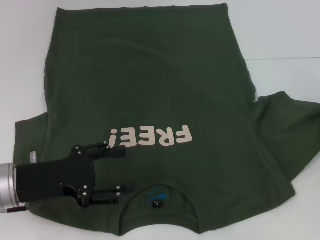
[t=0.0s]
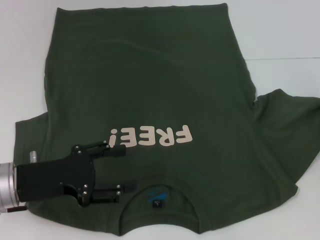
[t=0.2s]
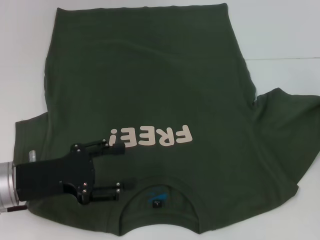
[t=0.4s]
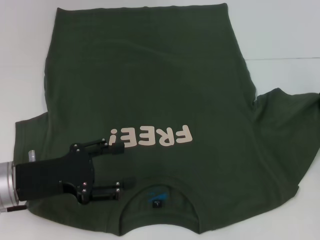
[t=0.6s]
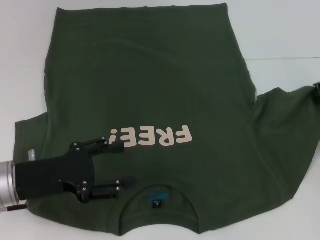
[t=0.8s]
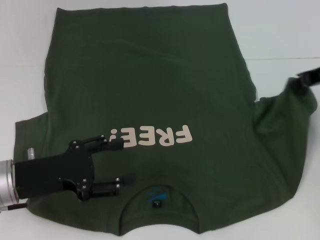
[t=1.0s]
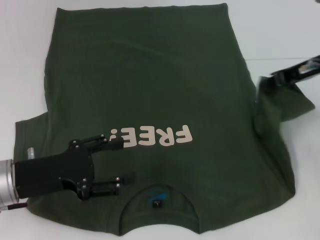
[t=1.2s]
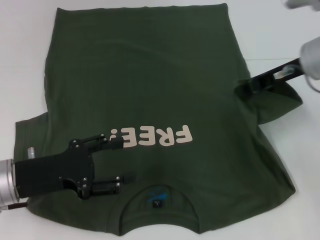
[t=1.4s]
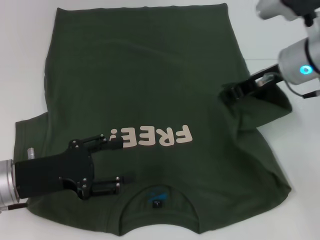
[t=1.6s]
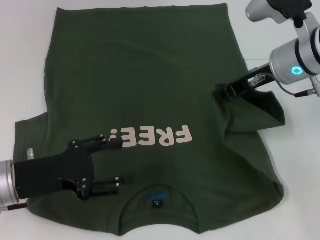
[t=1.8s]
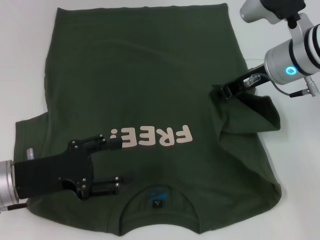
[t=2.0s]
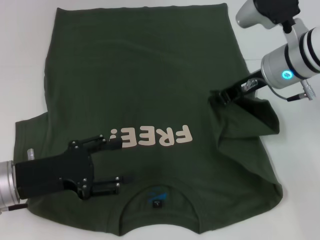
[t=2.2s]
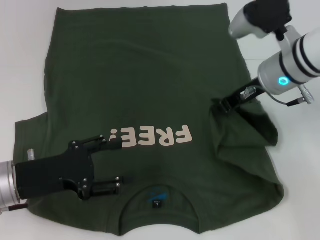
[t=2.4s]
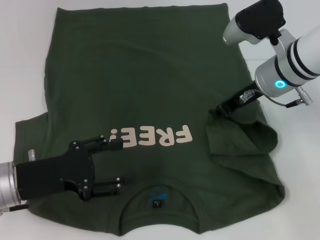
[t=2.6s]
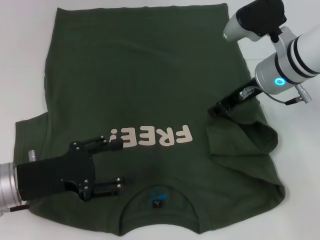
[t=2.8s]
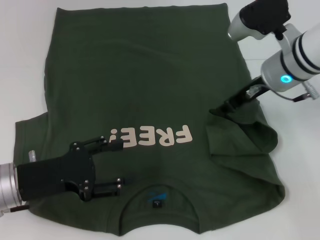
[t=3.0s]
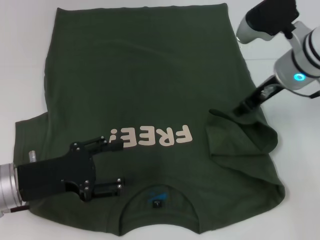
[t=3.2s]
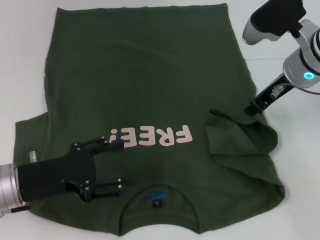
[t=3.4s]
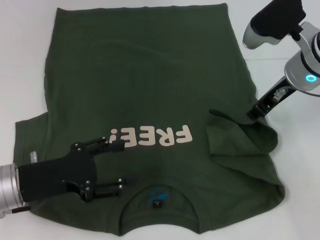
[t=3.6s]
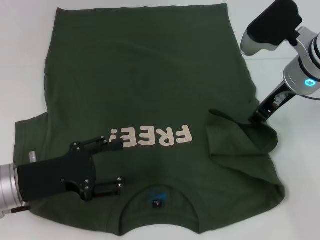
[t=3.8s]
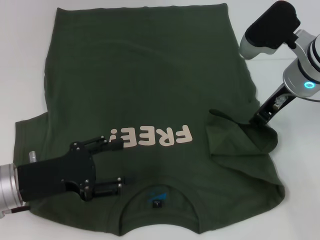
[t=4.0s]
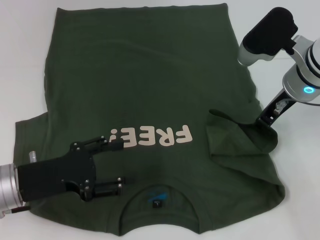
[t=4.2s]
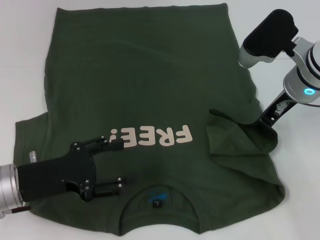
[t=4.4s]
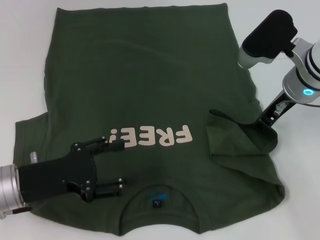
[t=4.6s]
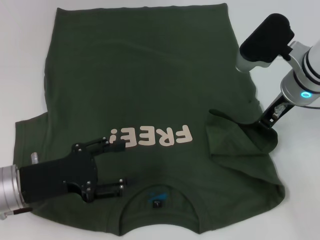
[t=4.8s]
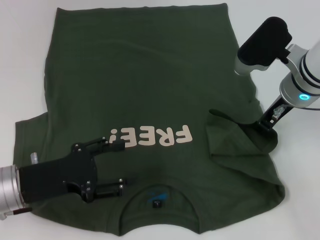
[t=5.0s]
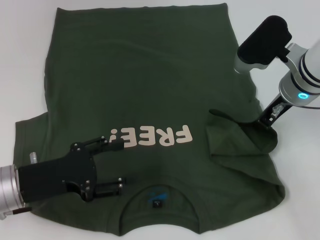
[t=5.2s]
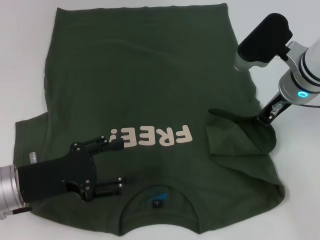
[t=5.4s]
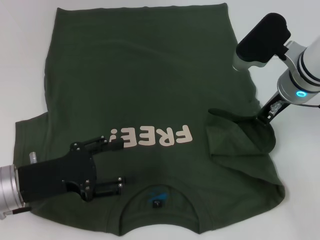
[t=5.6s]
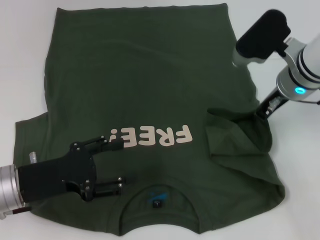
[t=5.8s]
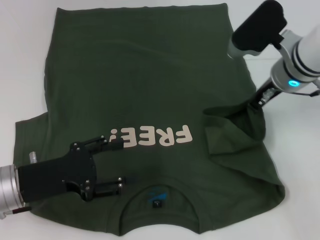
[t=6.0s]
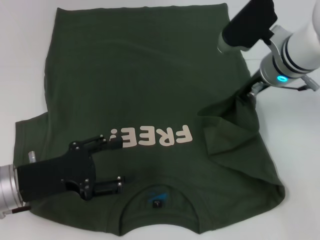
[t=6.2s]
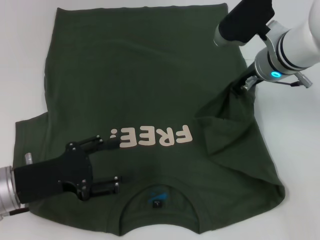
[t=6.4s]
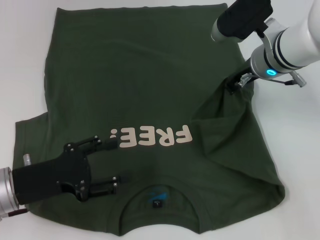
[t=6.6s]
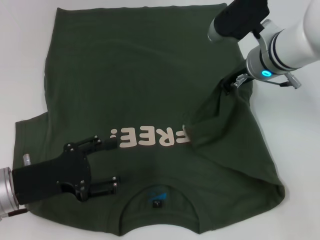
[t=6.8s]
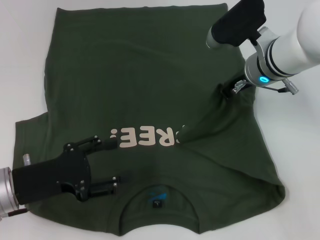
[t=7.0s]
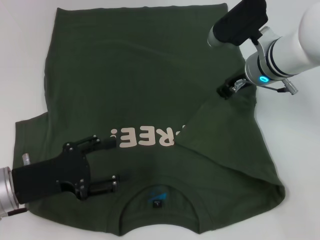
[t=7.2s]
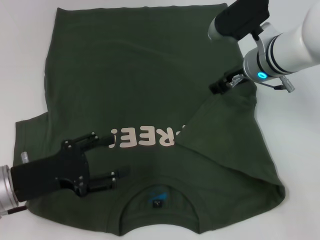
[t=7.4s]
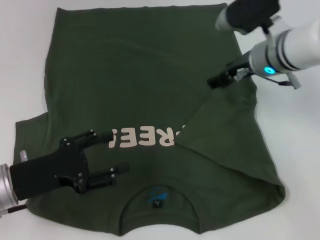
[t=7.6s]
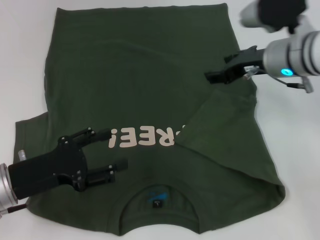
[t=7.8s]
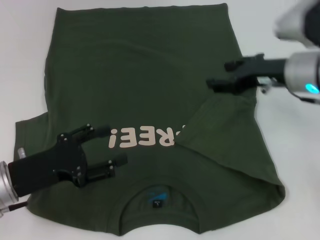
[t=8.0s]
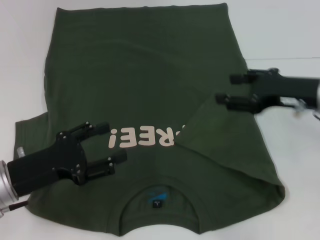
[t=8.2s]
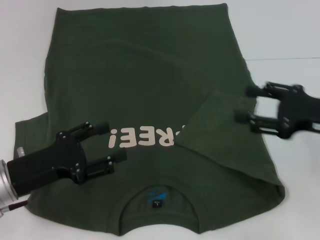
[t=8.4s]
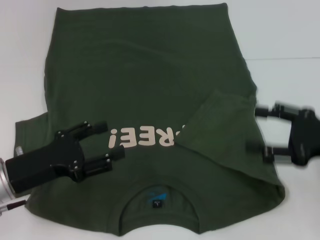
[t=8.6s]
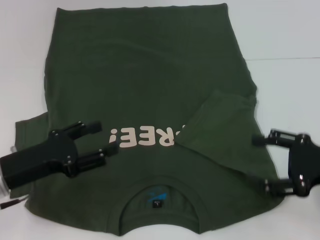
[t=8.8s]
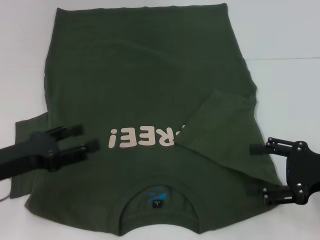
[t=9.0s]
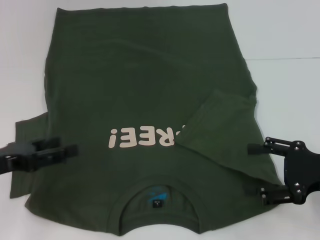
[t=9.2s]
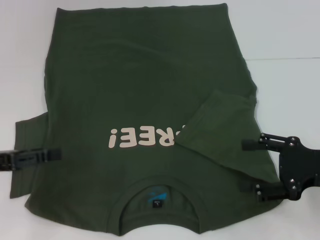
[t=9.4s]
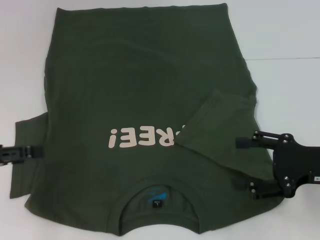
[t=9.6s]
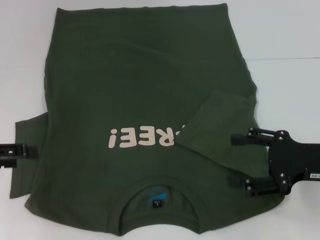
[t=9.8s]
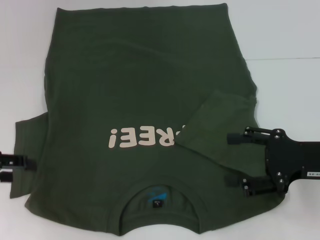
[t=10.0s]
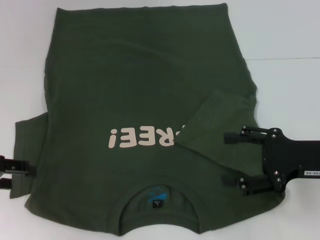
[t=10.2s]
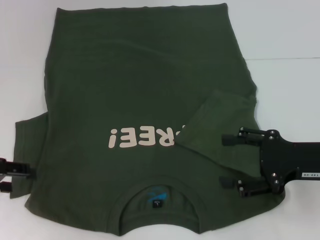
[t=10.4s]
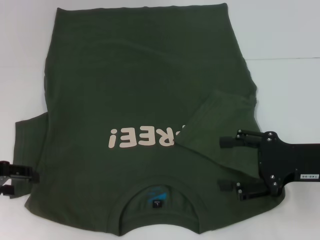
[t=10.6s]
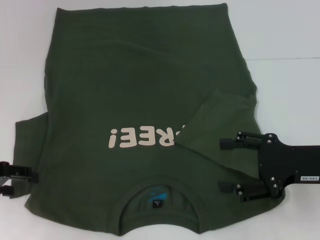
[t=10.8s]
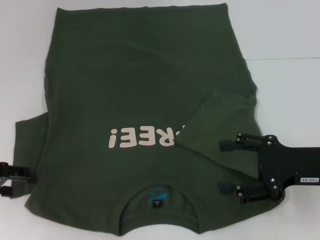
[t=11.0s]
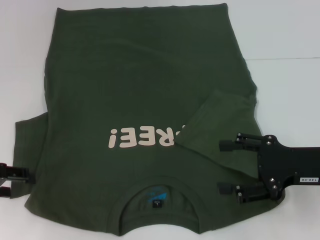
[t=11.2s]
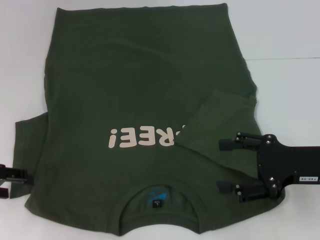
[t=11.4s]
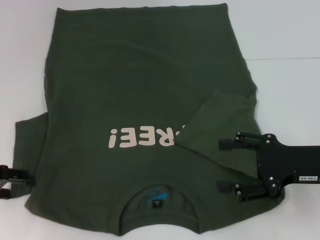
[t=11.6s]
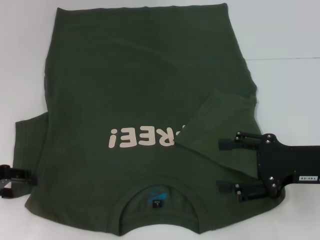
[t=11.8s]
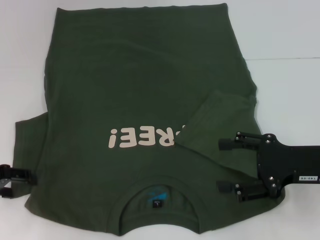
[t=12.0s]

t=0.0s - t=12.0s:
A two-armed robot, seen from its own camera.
Step, t=0.0s - t=8.2s: Fold the bottom right sleeve with your right hand.
t=0.0s - t=1.6s: The right gripper moves to the left, some 15 cm.
t=1.6s - t=3.0s: The grippers move only a little.
t=3.0s - t=4.4s: The grippers move only a little.
t=4.4s - t=6.0s: The right gripper closes.
t=6.0s - t=7.6s: The right gripper opens its fingers.
t=7.6s - t=9.0s: The right gripper moves backward and to the right, some 25 cm.
t=9.0s - t=10.4s: The left gripper moves to the left, roughly 5 cm.
t=10.4s - t=12.0s: The grippers stay close to where they were, moving slightly.

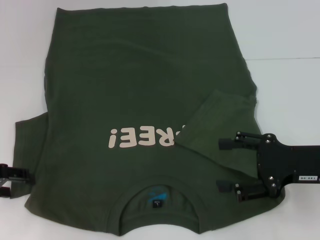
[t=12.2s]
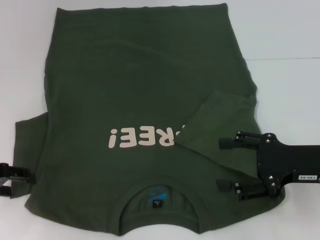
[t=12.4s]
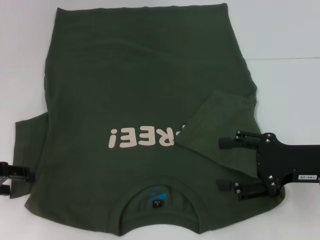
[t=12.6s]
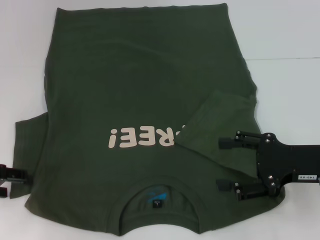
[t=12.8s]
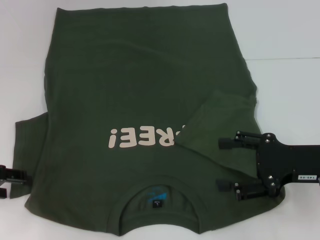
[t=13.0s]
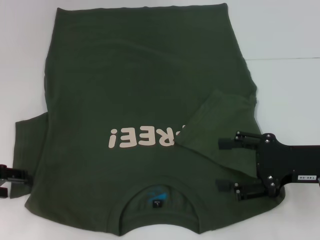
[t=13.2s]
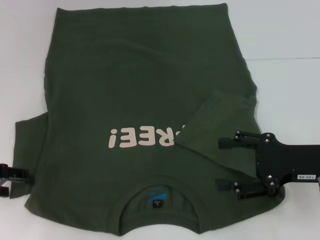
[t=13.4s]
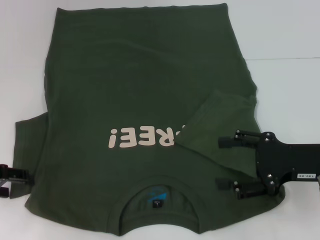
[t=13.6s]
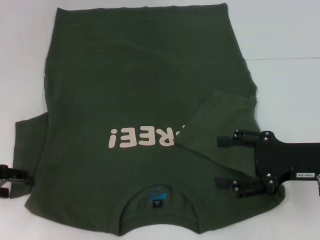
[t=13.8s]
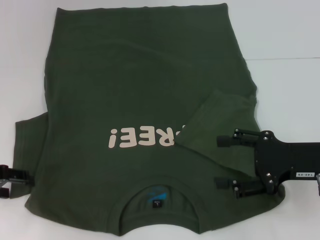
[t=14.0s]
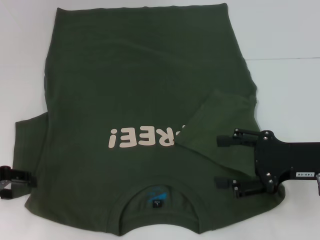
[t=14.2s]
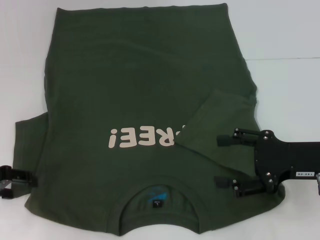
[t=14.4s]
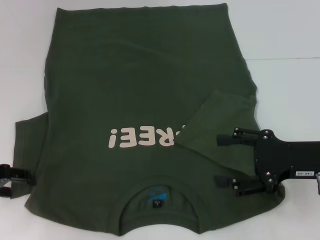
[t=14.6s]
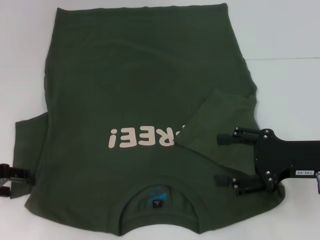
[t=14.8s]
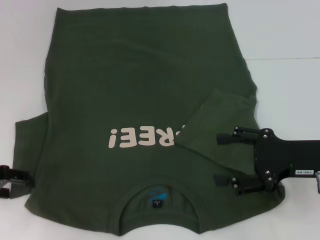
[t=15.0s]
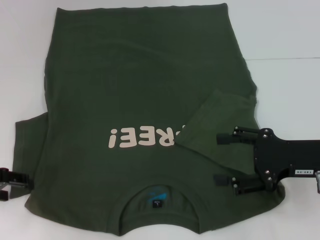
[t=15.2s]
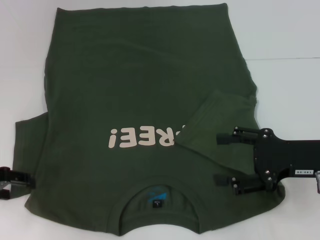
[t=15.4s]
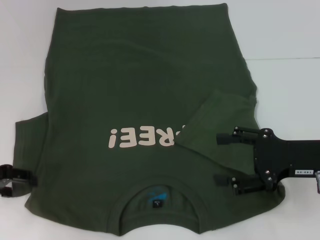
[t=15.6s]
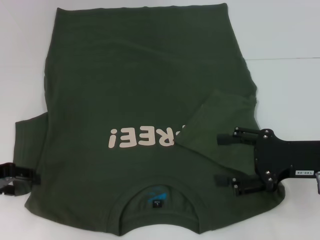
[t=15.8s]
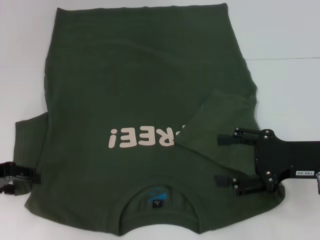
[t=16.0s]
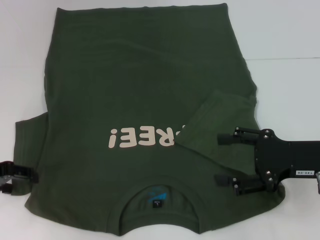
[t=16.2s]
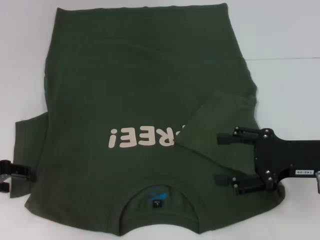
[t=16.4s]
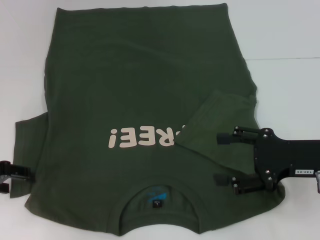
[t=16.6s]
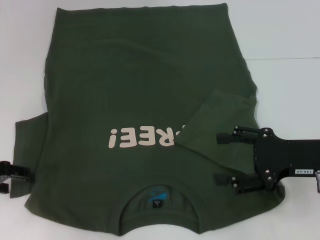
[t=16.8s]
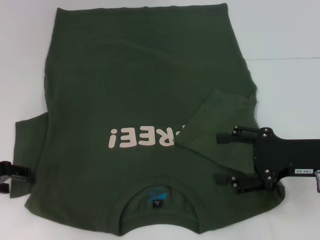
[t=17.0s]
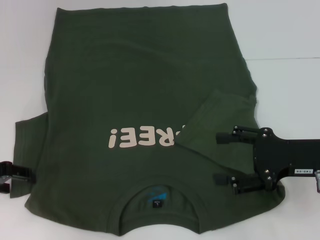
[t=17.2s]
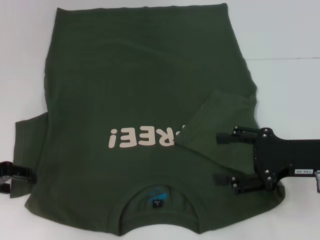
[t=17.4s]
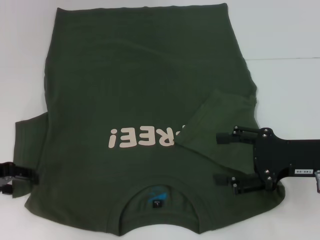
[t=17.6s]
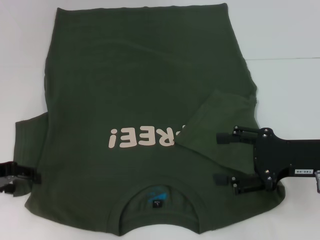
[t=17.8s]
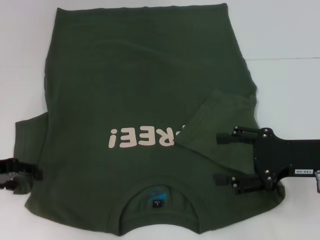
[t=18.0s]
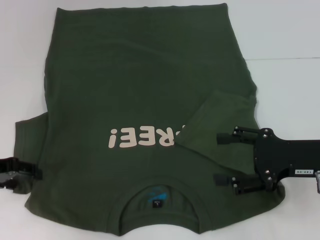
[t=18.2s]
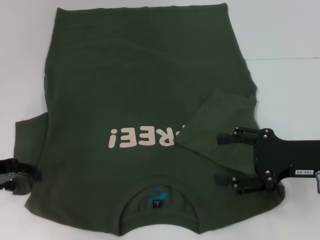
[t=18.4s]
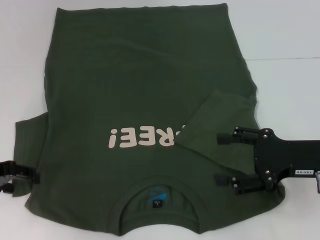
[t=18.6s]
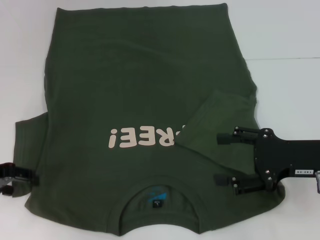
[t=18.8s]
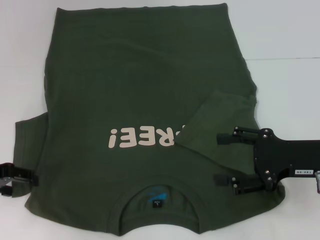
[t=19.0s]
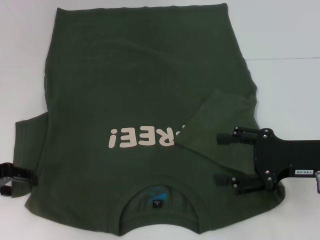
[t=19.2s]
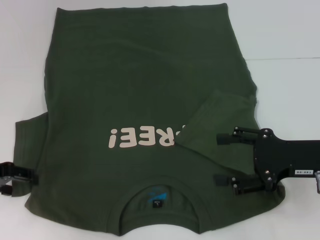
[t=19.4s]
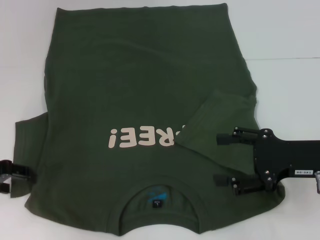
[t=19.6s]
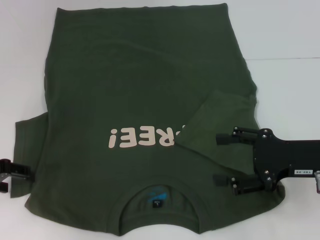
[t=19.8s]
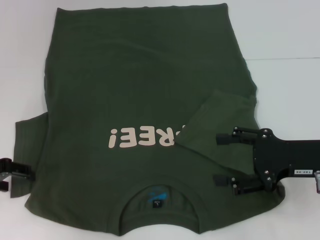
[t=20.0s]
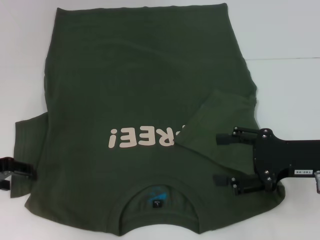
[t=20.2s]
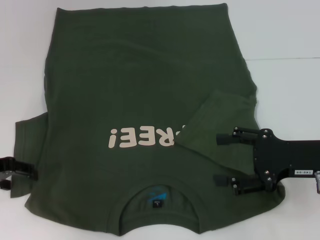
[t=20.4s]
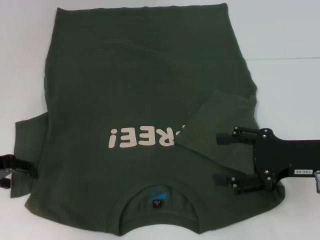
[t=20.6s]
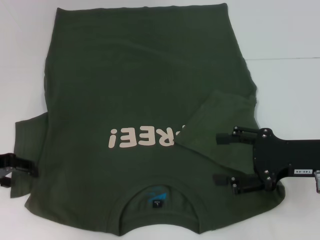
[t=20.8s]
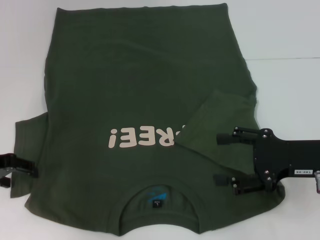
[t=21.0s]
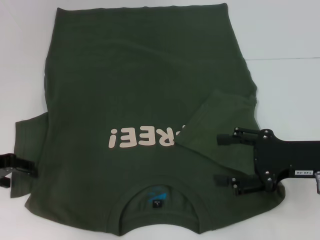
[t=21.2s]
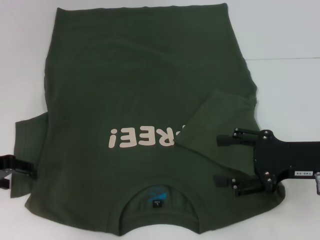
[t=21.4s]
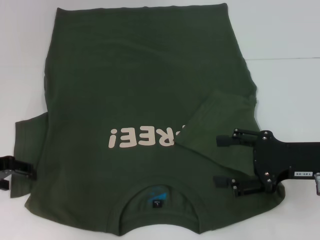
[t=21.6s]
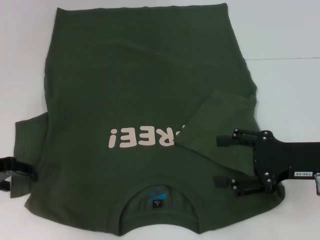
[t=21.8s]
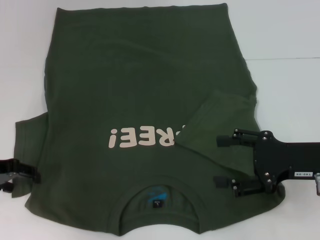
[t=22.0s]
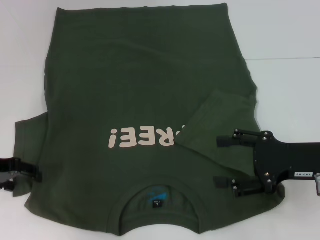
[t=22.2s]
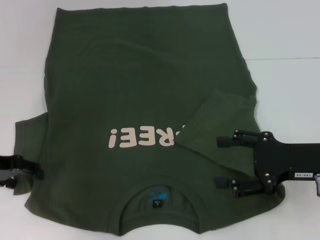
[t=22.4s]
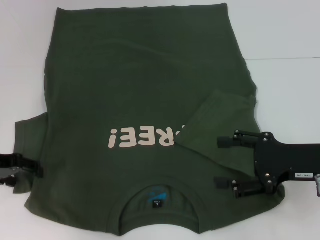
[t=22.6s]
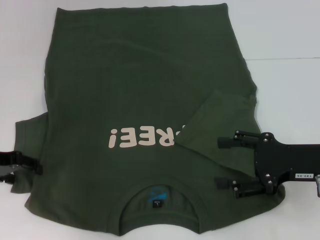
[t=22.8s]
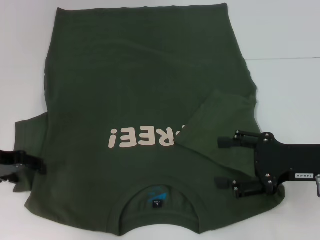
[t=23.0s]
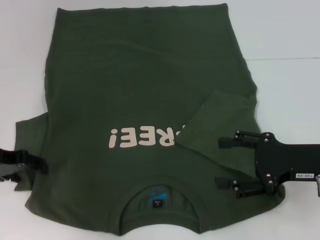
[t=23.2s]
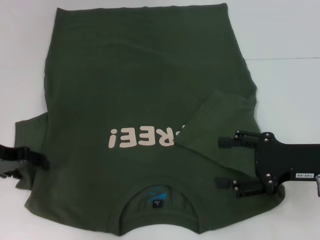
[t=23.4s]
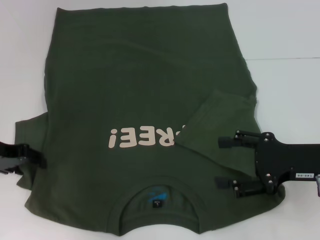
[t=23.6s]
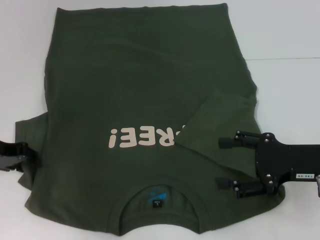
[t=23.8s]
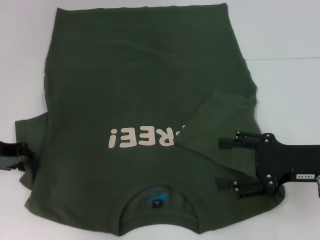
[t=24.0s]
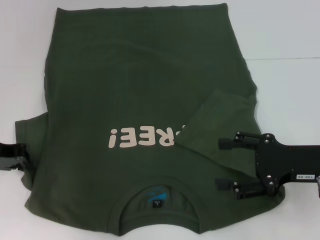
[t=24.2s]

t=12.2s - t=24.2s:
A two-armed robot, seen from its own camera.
t=12.2s - t=15.2s: Both grippers stay put.
t=15.2s - t=16.6s: The two grippers keep their place.
t=16.6s - t=19.8s: Both grippers stay about where they are.
t=19.8s - t=21.2s: The grippers make only small movements.
t=21.2s - t=22.6s: Neither gripper changes place.
t=22.6s - t=24.2s: The left gripper closes.
